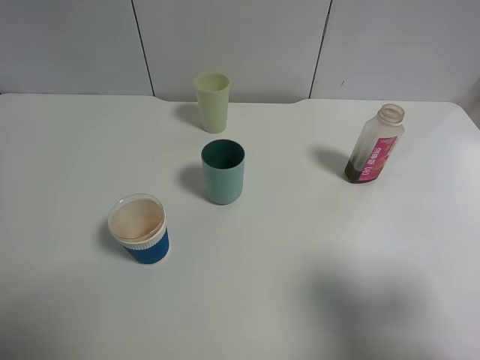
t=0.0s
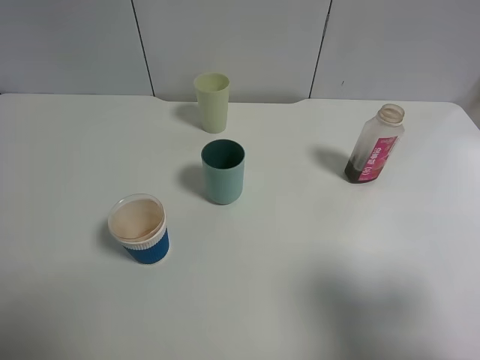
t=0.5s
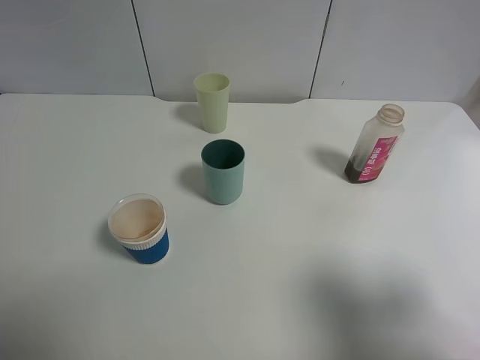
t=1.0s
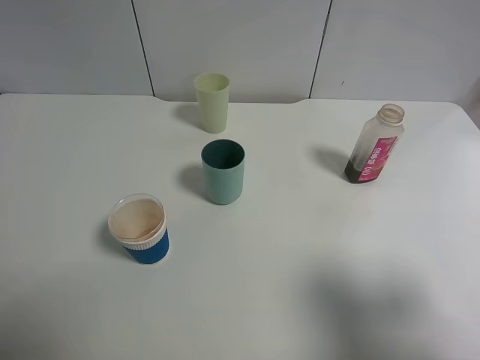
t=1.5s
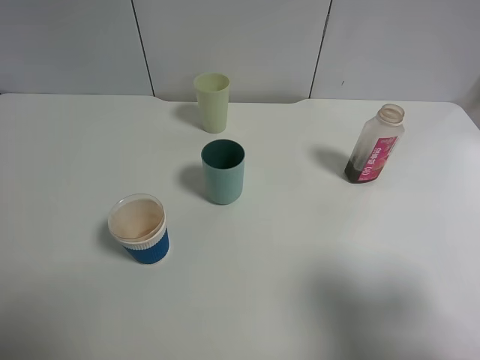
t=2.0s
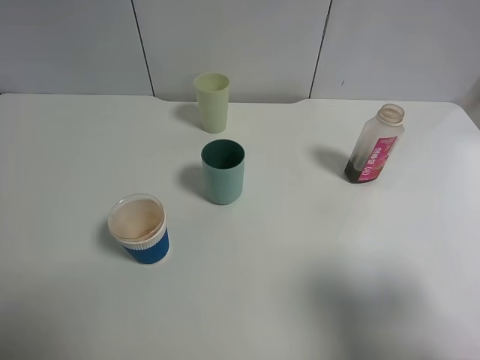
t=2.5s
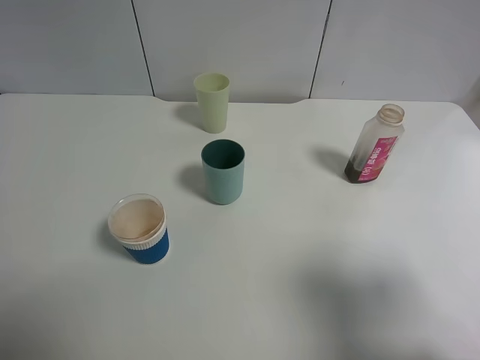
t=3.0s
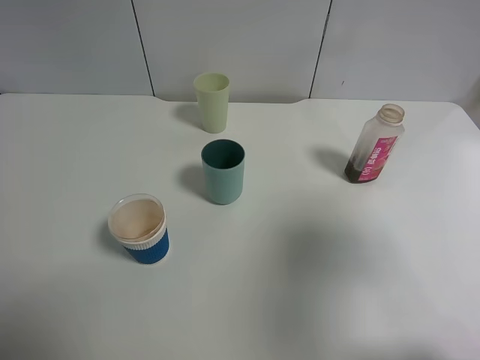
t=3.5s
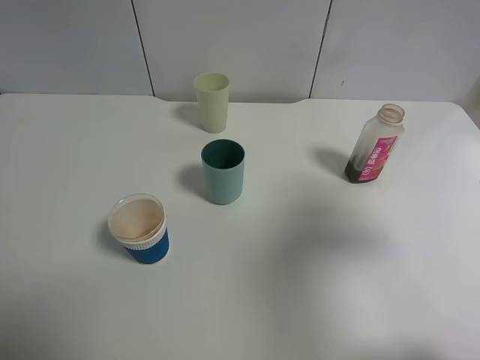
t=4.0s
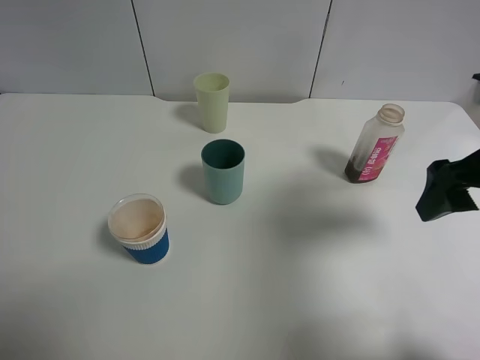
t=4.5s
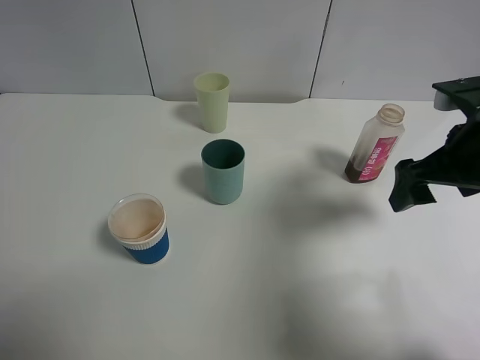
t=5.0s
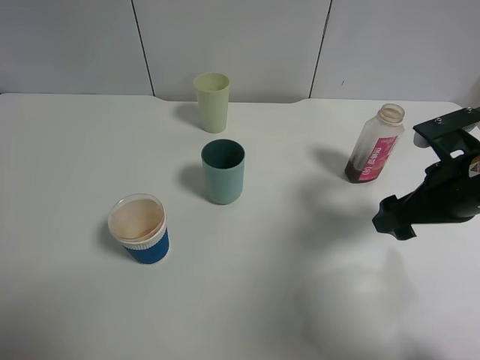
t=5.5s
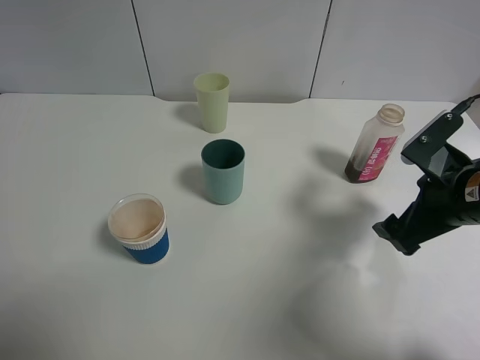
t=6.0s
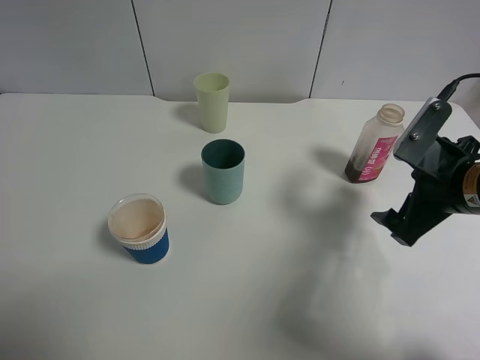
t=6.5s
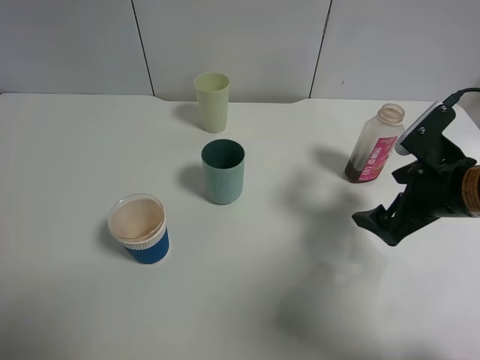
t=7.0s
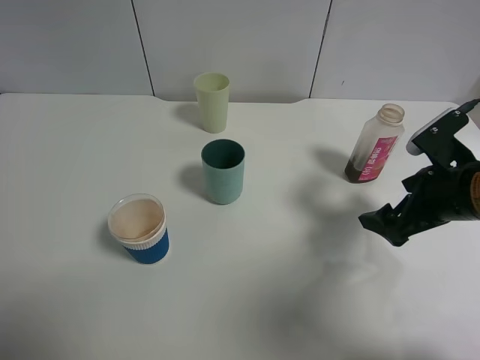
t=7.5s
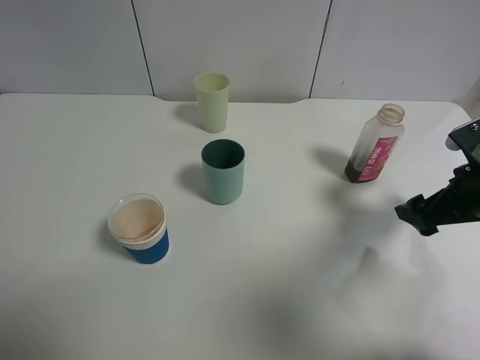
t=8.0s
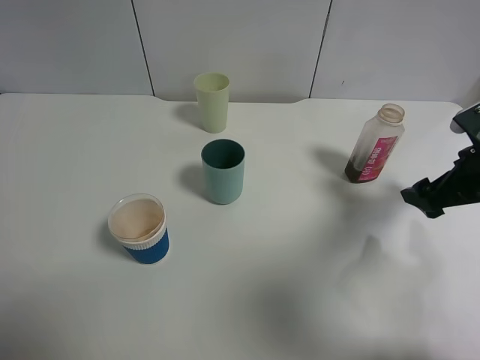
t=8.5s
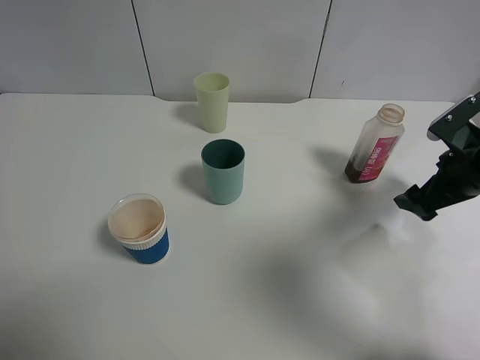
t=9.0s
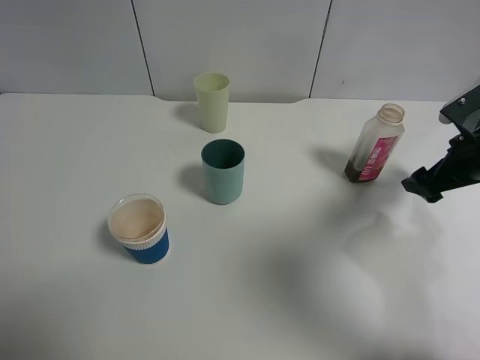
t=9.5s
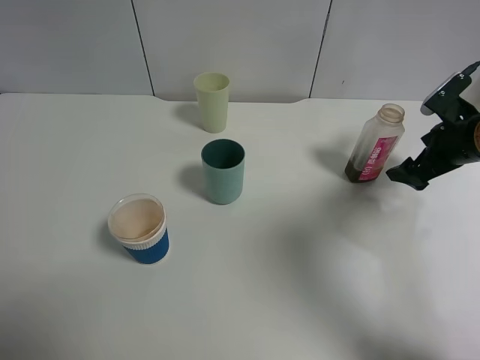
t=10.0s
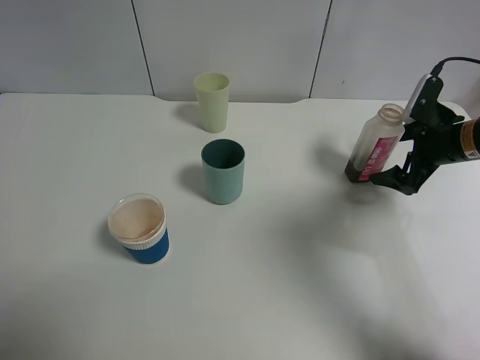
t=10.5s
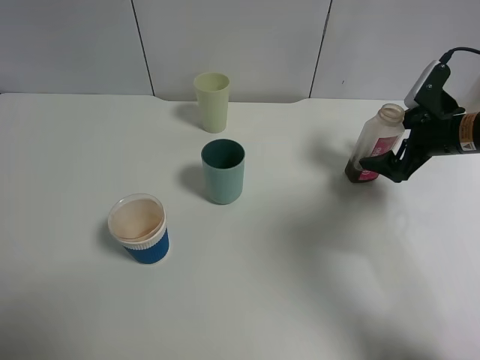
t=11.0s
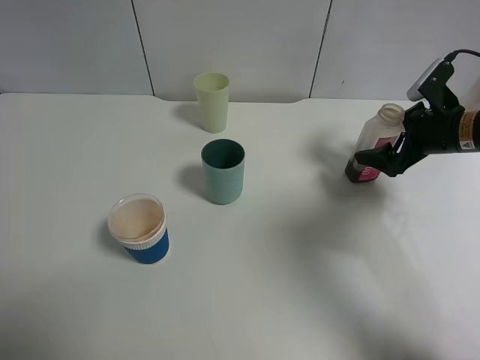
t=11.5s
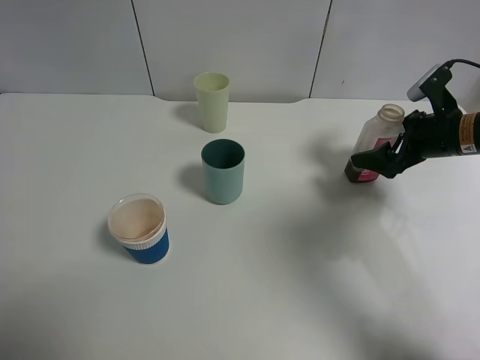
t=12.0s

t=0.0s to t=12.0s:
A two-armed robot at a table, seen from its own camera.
Task of the whole recording: use a gripper to hold the bottle of the drink and pour it into a random cup.
t=0.0s to t=2.0s: Both grippers stay put.
t=2.0s to t=4.0s: The right gripper goes roughly 15 cm forward.
t=4.0s to t=6.0s: The right gripper travels downward and forward by about 15 cm.
t=6.0s to t=8.0s: The grippers make only small movements.
t=8.0s to t=10.0s: The right gripper travels forward by approximately 10 cm.

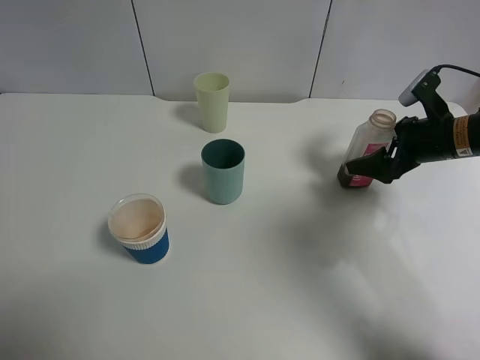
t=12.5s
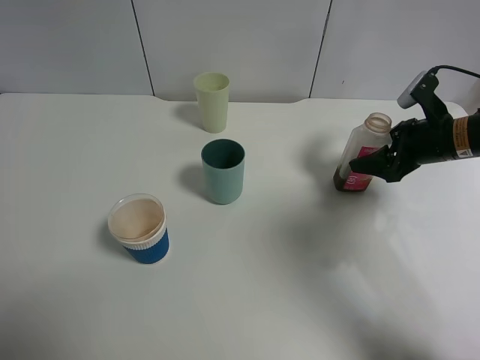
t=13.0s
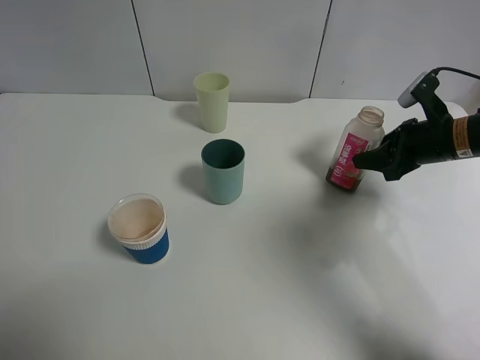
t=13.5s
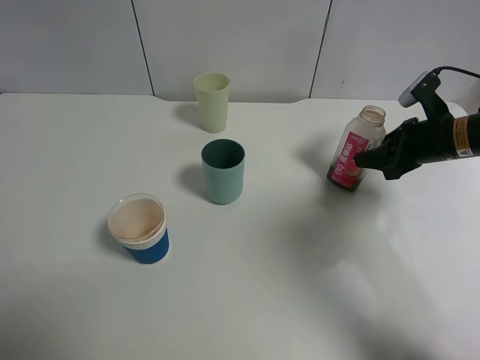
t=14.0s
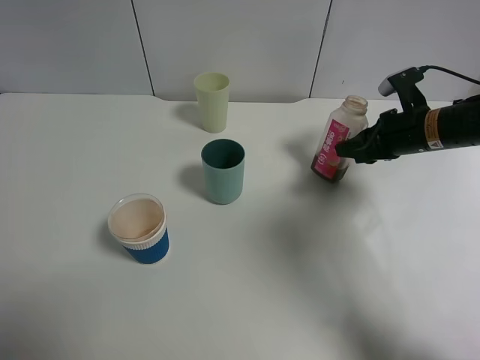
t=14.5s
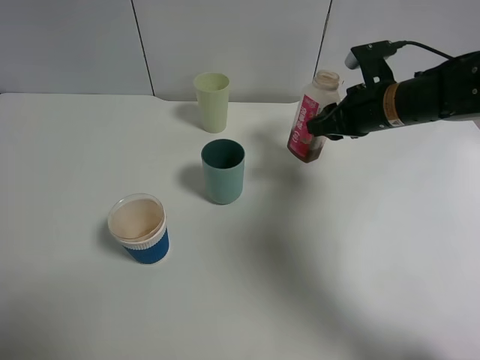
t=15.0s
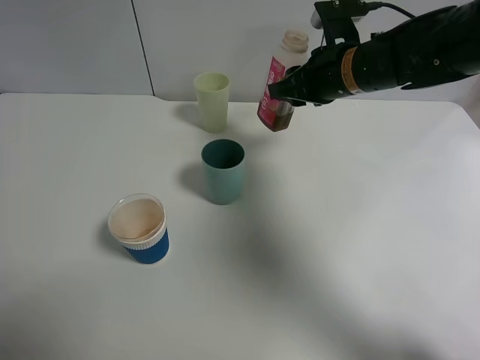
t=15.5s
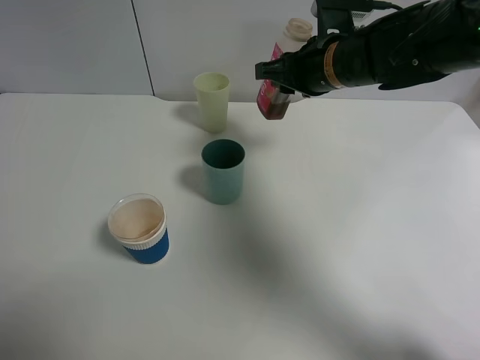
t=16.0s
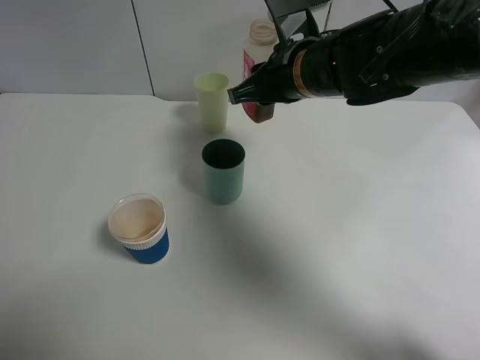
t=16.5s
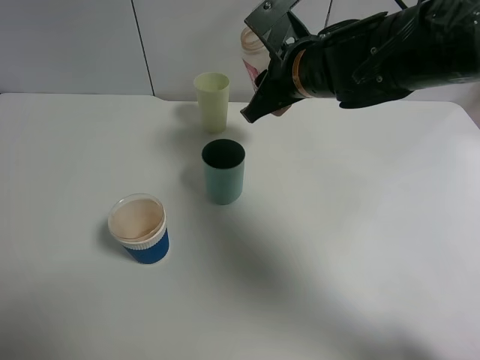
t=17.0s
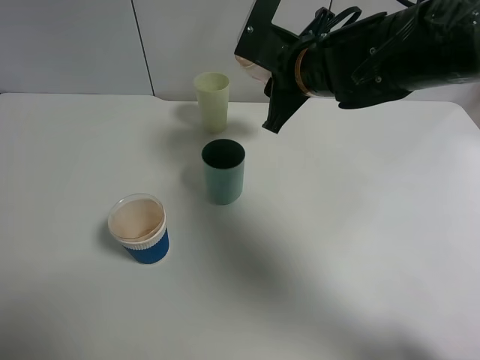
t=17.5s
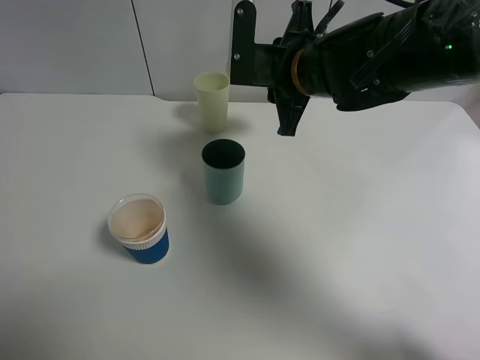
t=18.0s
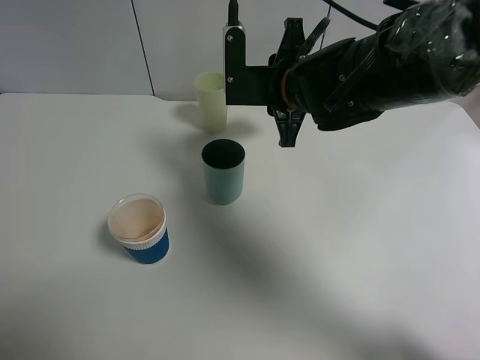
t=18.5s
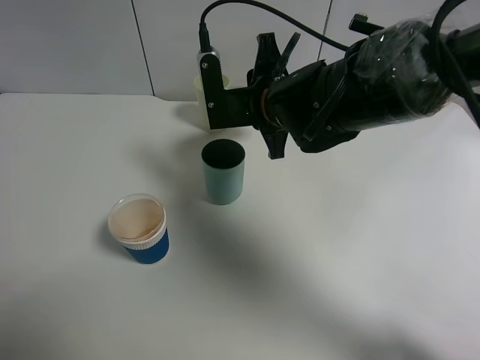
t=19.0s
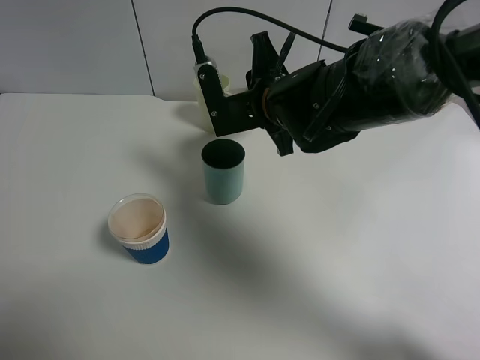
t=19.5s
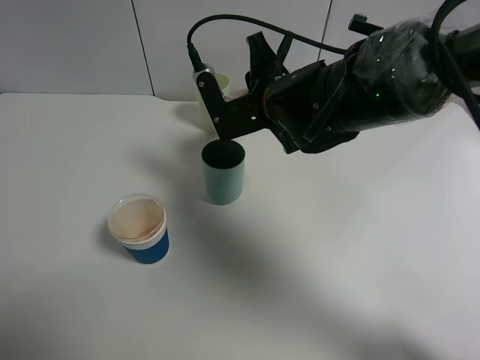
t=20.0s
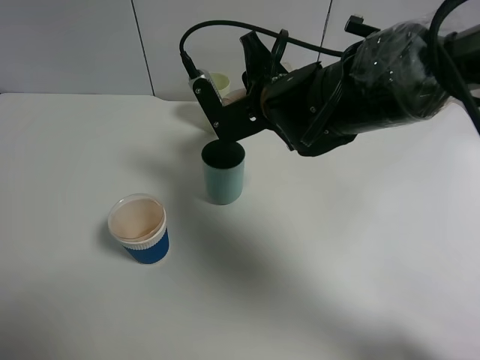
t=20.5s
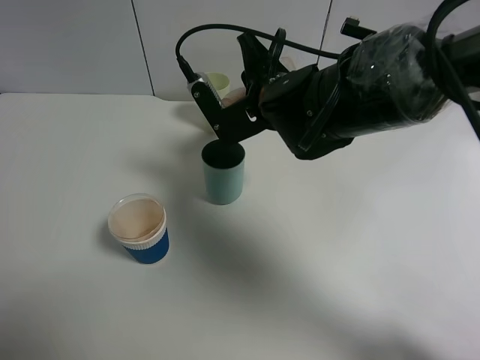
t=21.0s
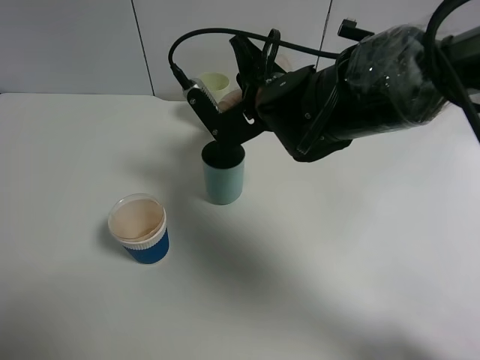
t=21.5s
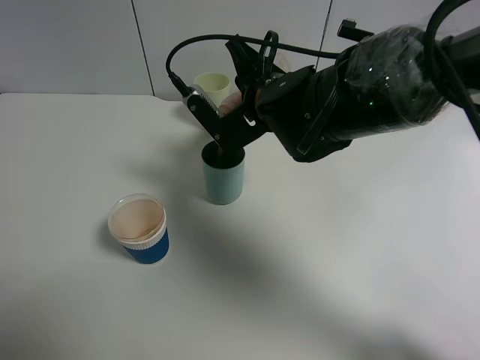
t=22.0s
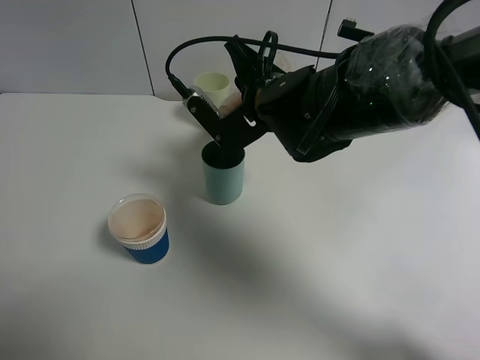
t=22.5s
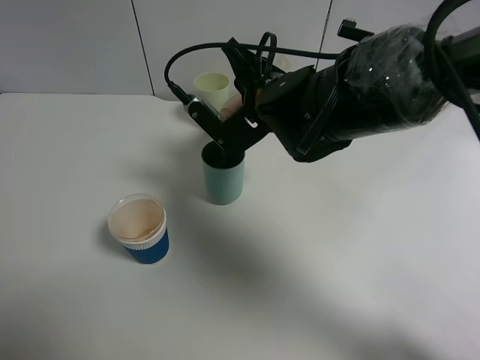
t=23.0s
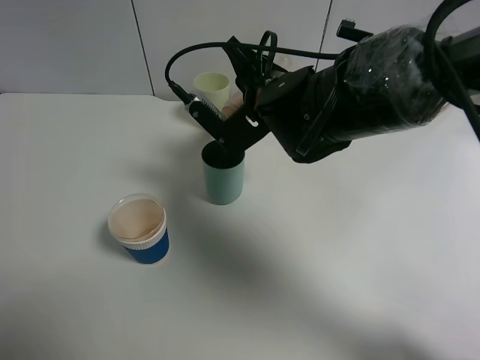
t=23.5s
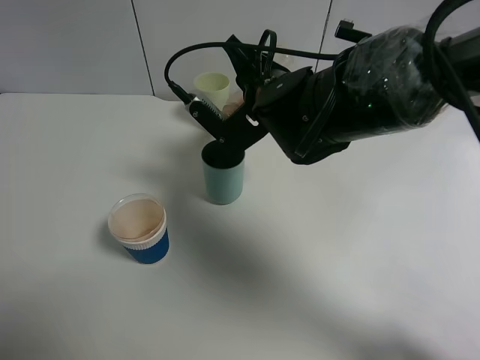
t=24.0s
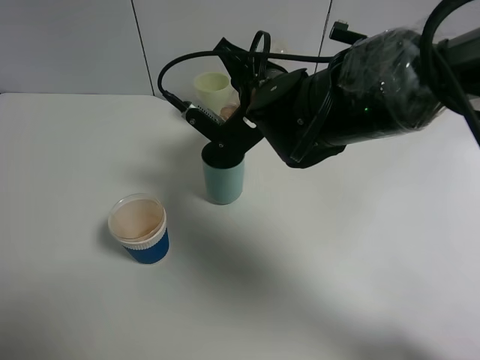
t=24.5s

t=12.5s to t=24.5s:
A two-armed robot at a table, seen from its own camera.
Task of the whole recording: use a gripper to hold the bottle of the drink and pour it into a random cup.
Step, t=12.5s to t=14.5s: Grasp the cranberry juice bottle with the right gripper.
t=12.5s to t=14.5s: The right gripper closes up.
t=14.5s to t=16.5s: The right gripper moves to the left and upward, some 20 cm.
t=20.5s to t=22.5s: There are only small adjustments of the grippers.
t=22.5s to t=24.5s: The grippers stay close to where they were, moving slightly.

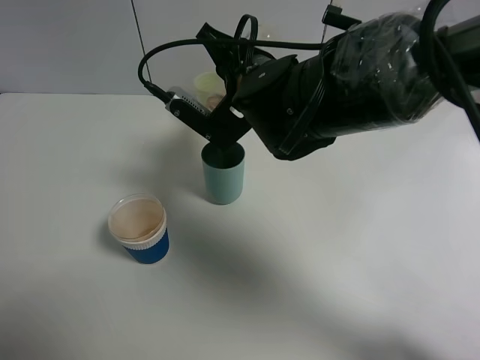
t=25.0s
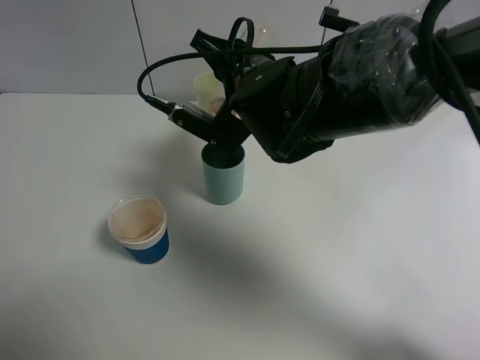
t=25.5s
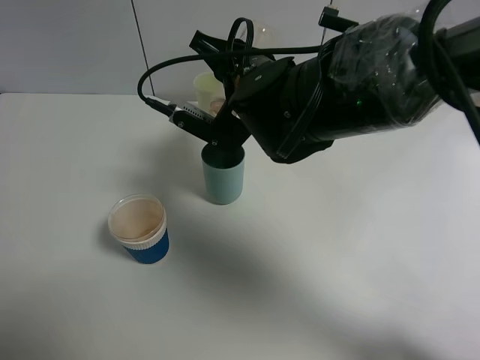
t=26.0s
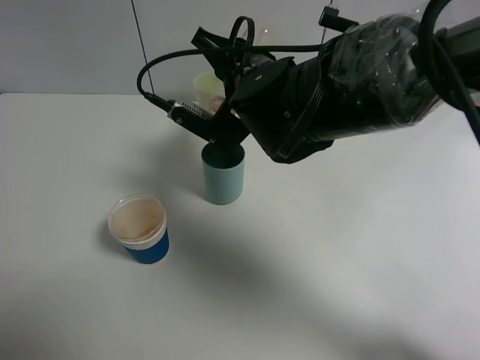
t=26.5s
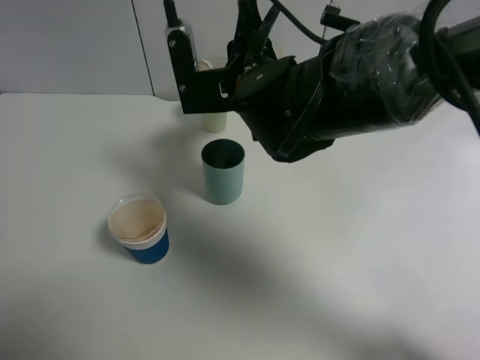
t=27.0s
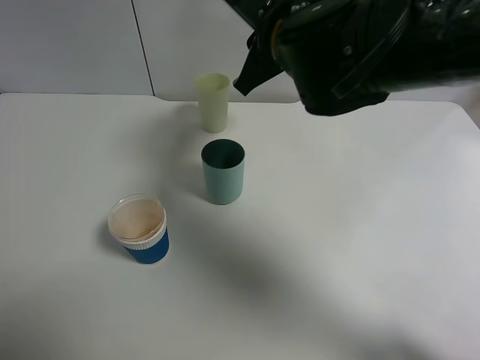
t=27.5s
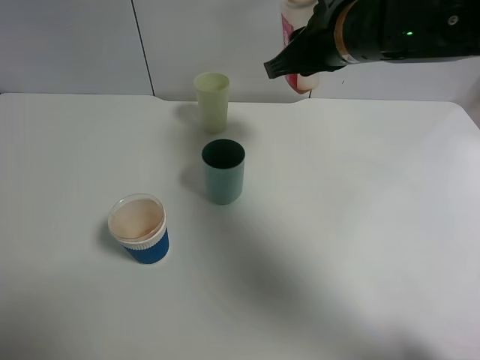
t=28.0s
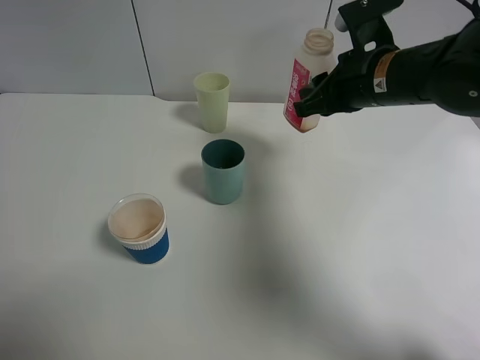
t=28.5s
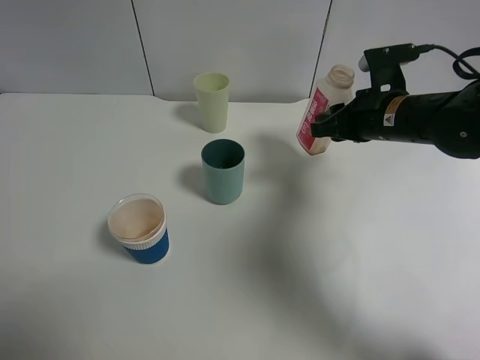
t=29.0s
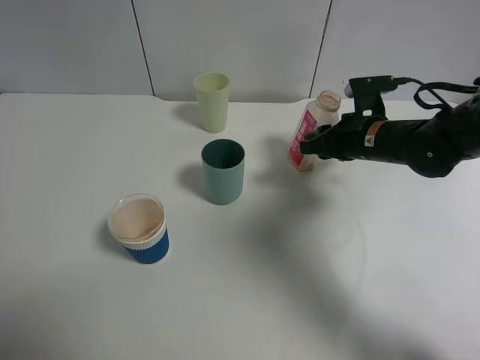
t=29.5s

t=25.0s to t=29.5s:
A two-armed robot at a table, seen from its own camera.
Task of the whole recording: use a gripper to hold the bottle of the drink and pour it into a random cup.
Step, t=25.0s to t=27.0s: Pour the cranberry juice into the cyan cup with the right gripper.
t=27.0s to t=29.5s: The right gripper moves to the right and downward, about 20 cm.
